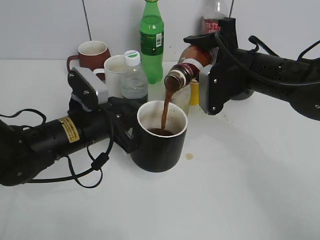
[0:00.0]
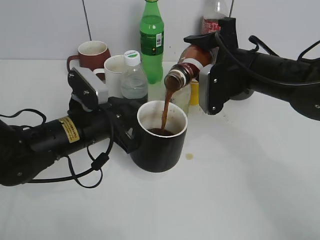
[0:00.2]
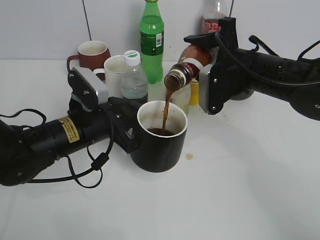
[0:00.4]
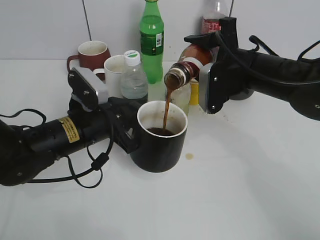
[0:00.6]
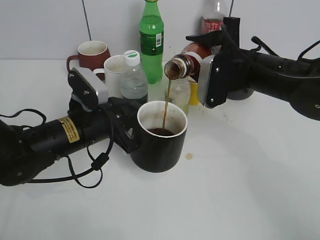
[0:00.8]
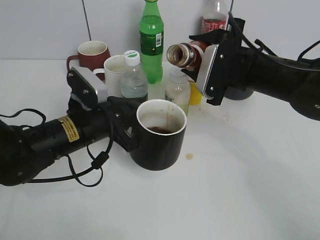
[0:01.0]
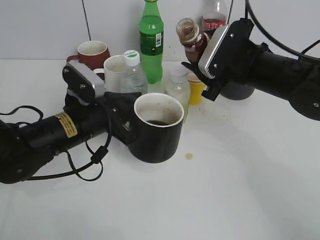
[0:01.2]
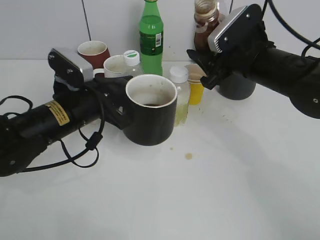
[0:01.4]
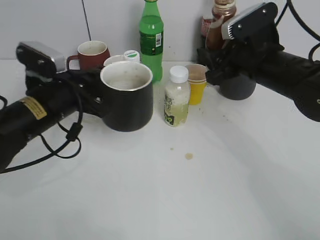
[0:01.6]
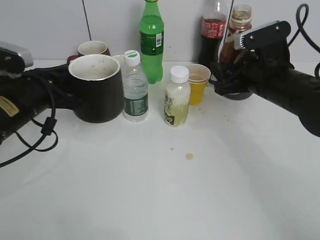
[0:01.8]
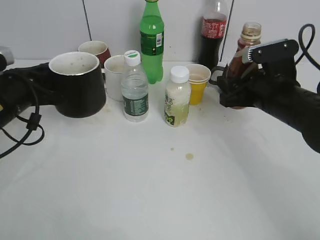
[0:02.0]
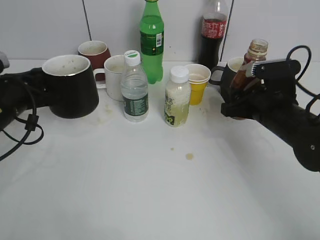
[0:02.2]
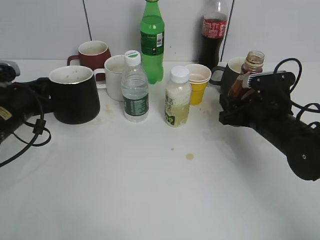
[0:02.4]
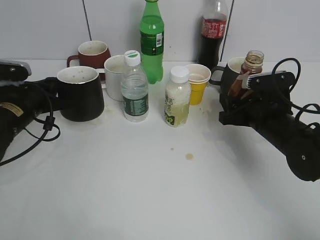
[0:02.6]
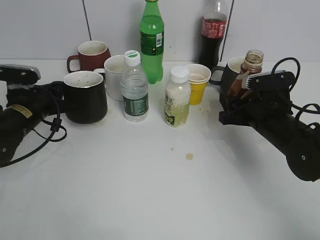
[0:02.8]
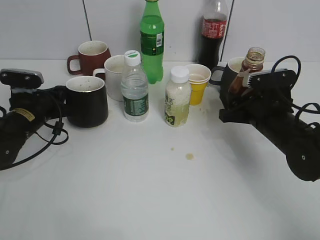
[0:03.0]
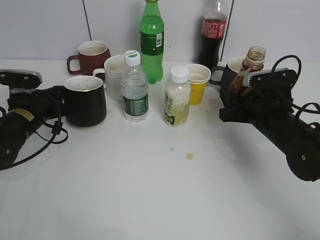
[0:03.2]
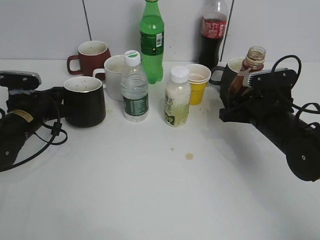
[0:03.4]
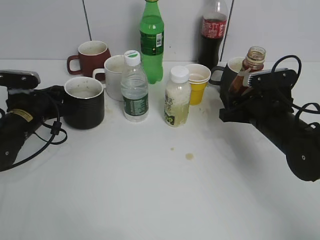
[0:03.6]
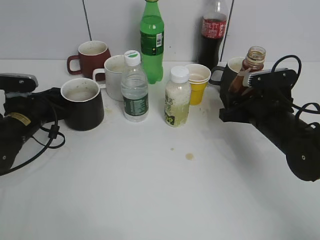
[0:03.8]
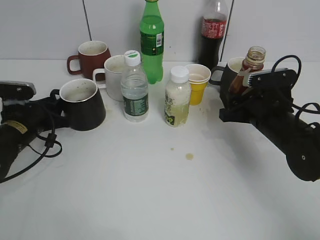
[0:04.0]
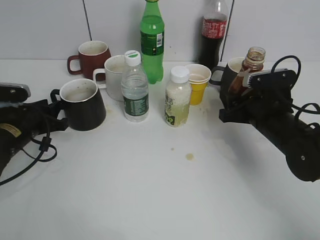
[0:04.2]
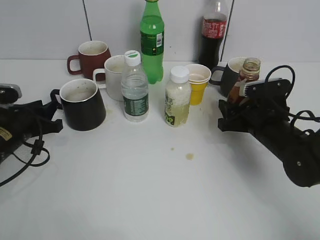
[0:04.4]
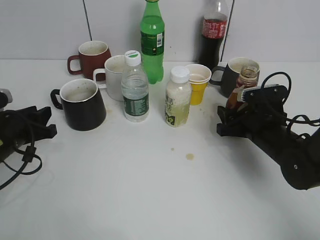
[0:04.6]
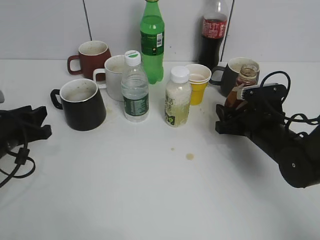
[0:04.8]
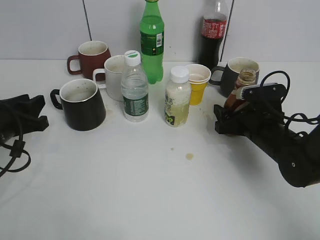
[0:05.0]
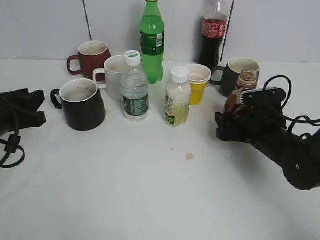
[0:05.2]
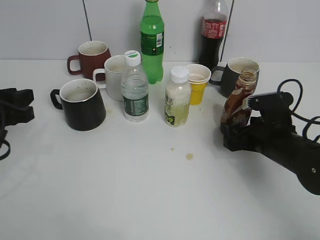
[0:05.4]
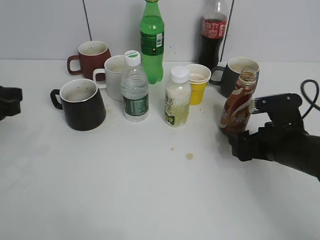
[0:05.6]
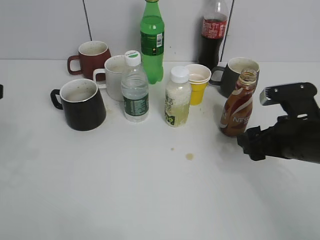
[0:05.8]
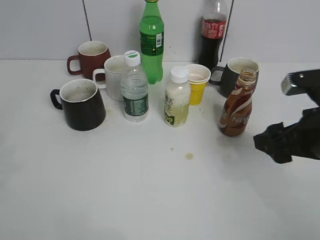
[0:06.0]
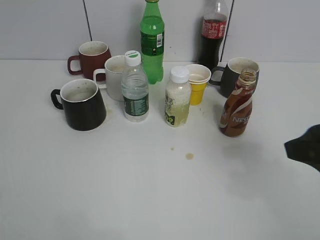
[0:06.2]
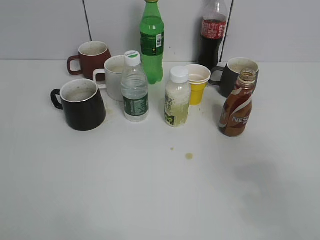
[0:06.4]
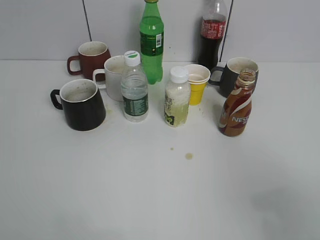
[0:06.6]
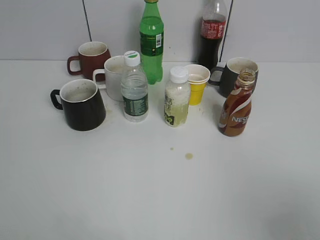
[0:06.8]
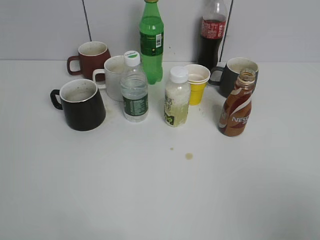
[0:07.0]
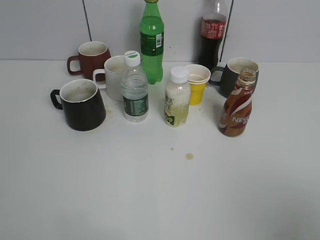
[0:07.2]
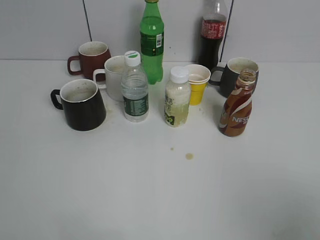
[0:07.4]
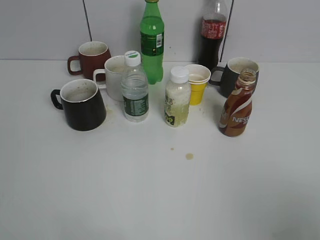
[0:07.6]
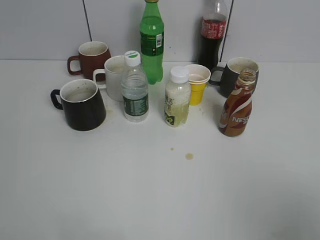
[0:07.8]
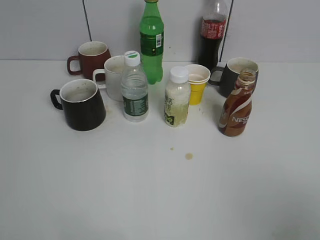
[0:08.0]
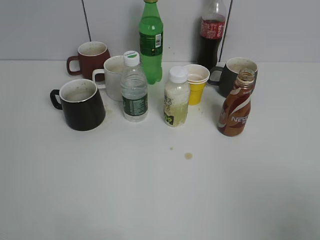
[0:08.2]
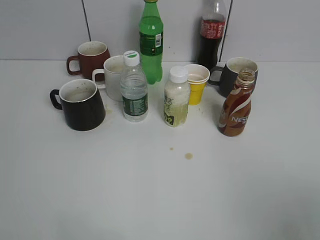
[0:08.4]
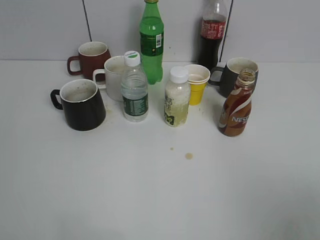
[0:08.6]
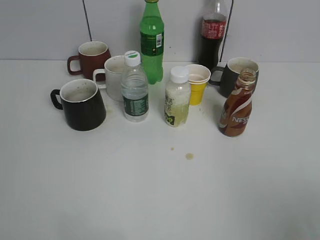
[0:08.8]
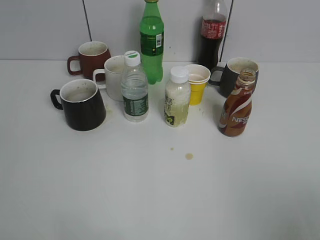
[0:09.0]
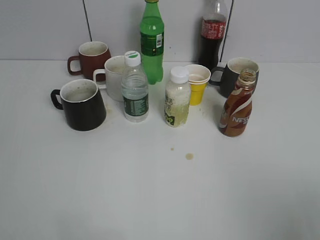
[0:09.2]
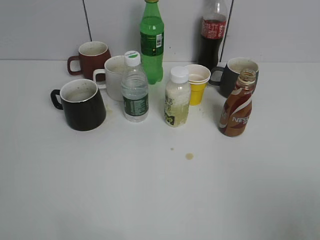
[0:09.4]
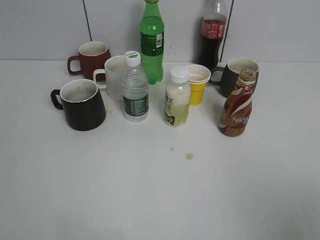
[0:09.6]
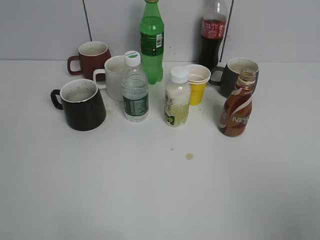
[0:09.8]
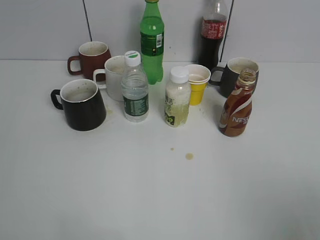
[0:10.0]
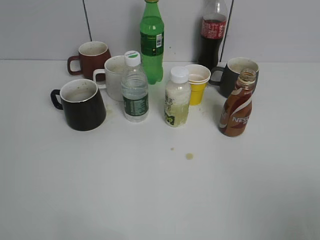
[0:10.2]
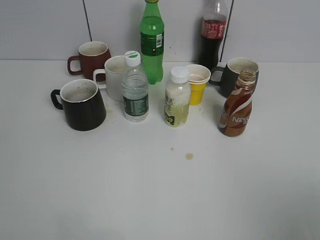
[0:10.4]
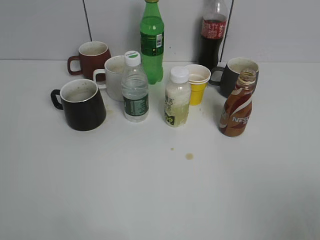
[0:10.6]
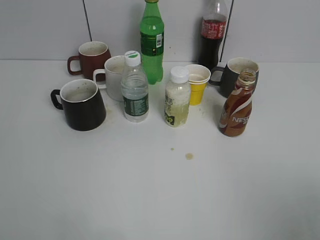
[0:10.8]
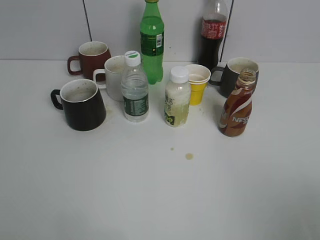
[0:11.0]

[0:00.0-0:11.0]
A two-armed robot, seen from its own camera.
Step, 0:01.4 to 0:05.2: Place the coffee bottle on the table with right gripper.
0:00.0 to 0:01.6: The left gripper changes place by roughly 5 cm.
0:01.6 to 0:03.2: The right gripper moves downward, approximately 10 cm; the left gripper goes some 15 cm downward, to the left and forward.
0:03.2 to 0:04.8: The left gripper heads backward, covering about 10 cm, and opens up.
0:04.8 to 0:06.2: The two grippers go some 25 cm upward and backward. The right gripper opens up.
0:06.2 to 0:07.8: The right gripper goes some 20 cm backward.
0:09.4 to 0:11.0: The two grippers keep their place.

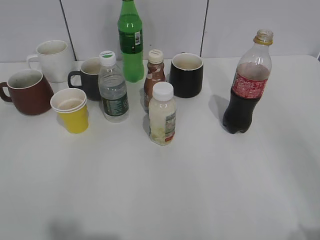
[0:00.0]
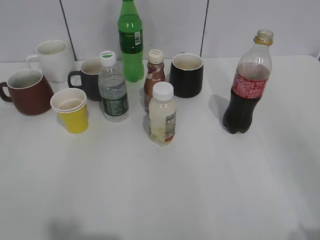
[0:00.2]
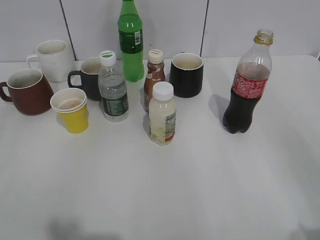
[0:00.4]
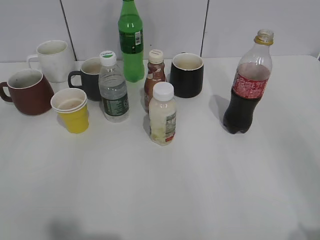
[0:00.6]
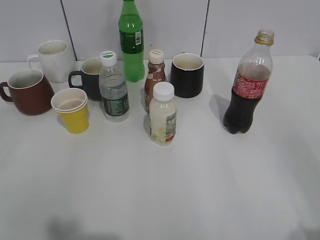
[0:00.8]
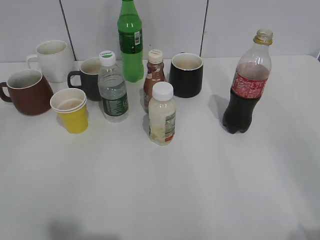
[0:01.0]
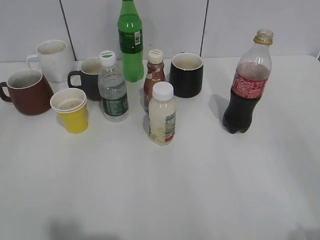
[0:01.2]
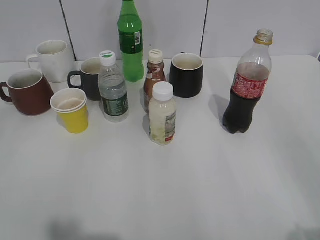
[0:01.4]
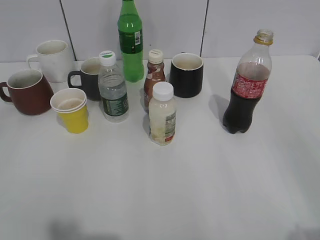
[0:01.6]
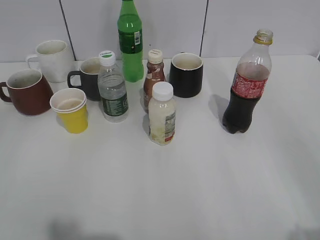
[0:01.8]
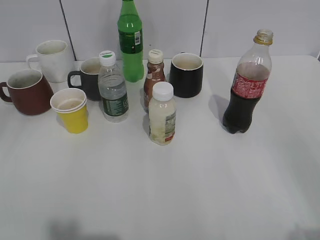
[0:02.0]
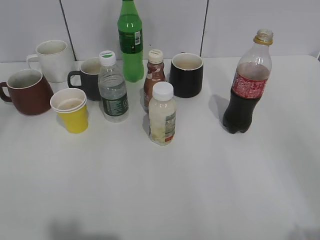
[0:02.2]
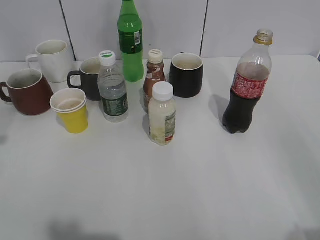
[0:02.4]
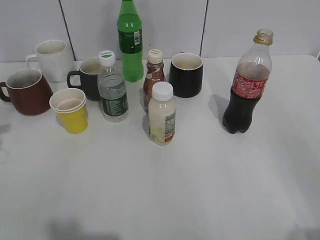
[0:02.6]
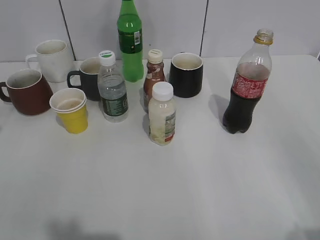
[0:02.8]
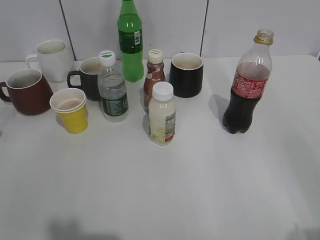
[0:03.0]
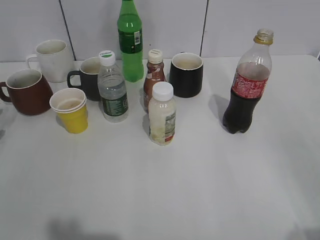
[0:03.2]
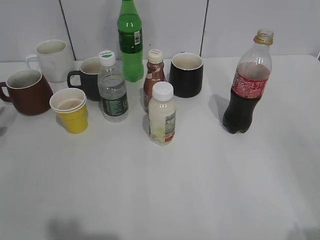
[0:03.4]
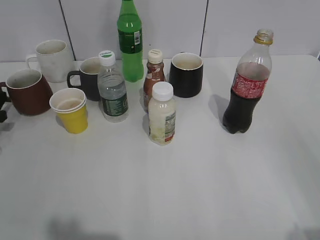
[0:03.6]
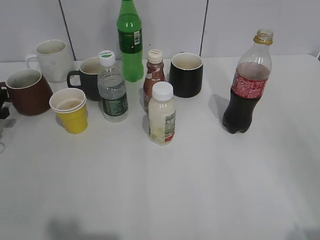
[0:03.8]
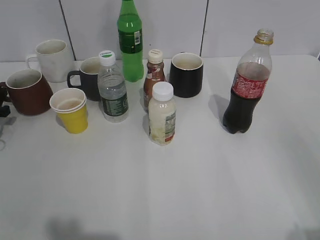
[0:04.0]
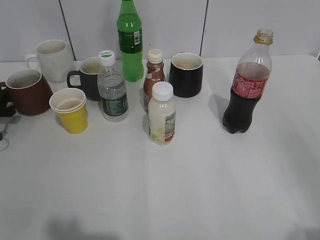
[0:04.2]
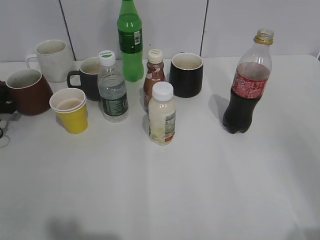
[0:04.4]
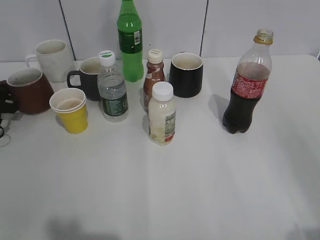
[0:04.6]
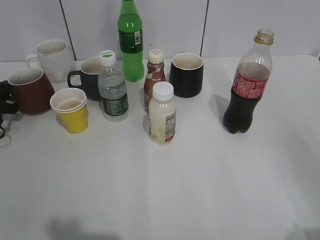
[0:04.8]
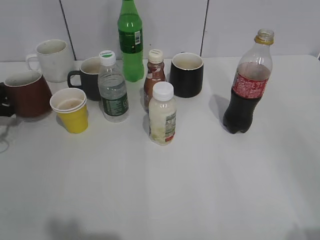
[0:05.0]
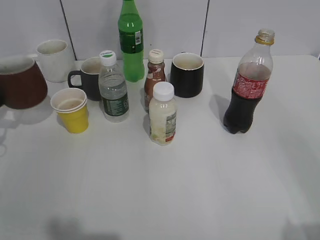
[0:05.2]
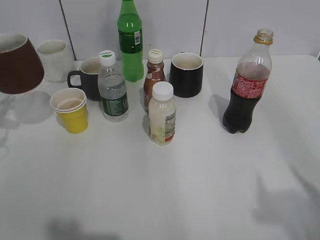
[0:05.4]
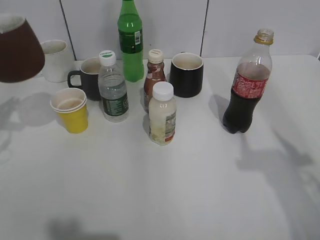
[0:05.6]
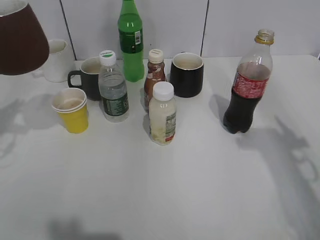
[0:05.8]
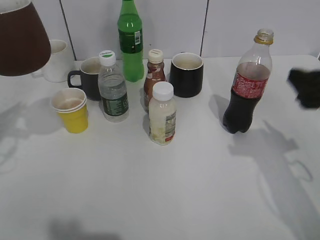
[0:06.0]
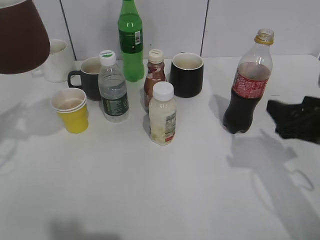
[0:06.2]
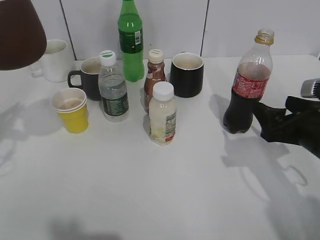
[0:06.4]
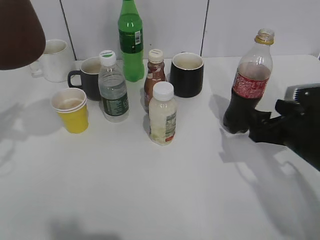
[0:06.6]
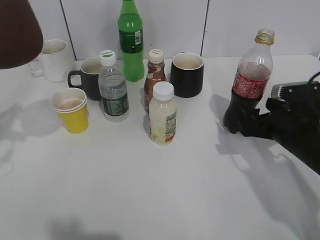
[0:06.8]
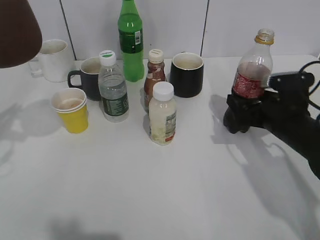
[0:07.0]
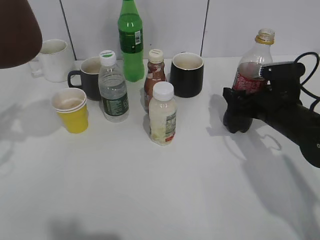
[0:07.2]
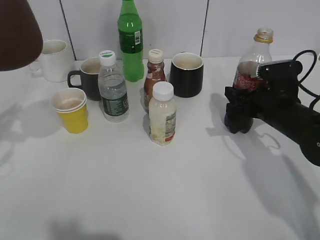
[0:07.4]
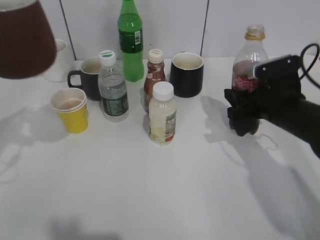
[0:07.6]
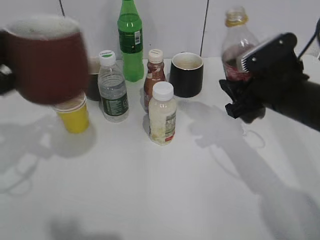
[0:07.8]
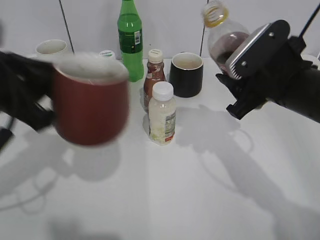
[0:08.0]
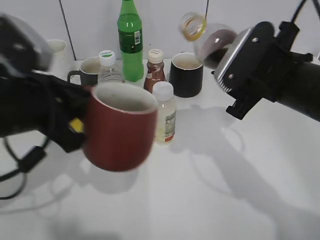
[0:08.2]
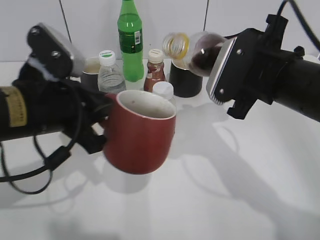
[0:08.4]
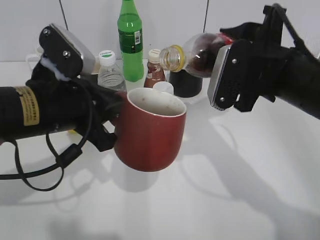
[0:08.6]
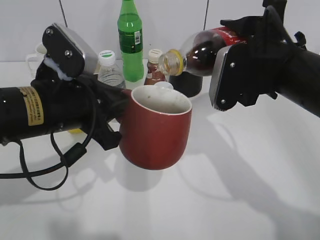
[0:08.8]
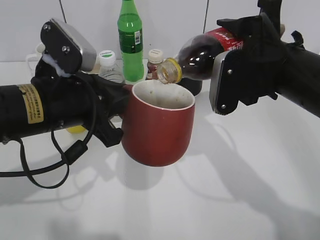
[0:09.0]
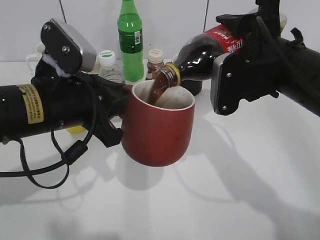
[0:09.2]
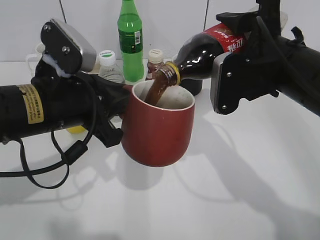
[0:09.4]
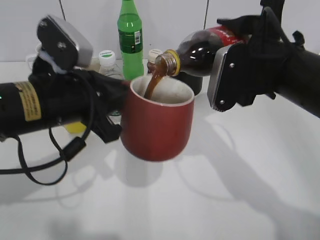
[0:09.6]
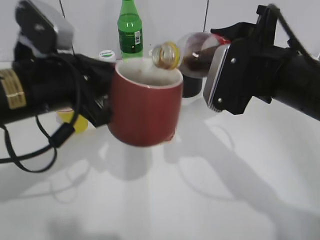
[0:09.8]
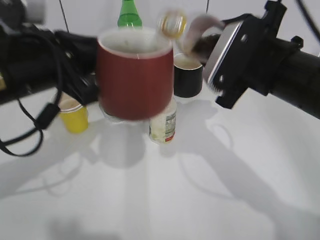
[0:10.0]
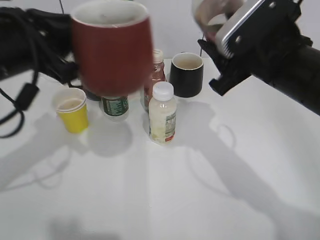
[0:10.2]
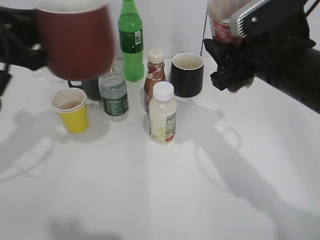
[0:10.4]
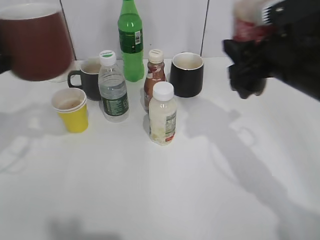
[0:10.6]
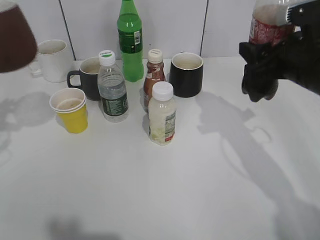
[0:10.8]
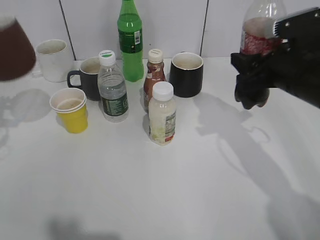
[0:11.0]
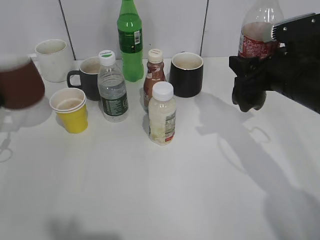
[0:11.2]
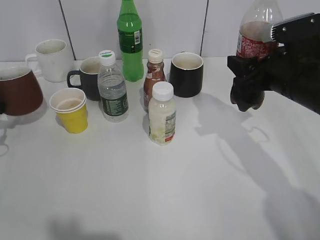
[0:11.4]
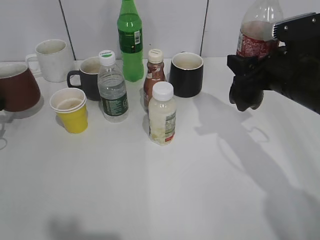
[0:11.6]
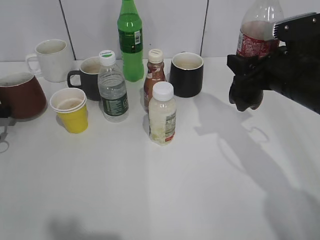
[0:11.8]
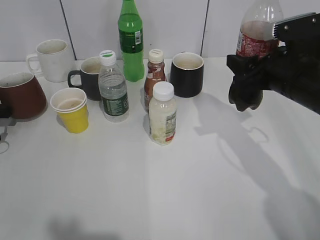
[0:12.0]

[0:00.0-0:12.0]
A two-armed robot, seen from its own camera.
Step, 0:00.8 to 0:04.6: Grasp the red cup with left gripper.
Step, 0:05.2 to 0:07.2: Grasp the bottle with cola with right gripper.
Step, 0:07.4 to 0:10.2: Pour the cola from bottle to cup with right gripper.
0:01.6 to 0:03.0: The left gripper goes approximately 35 cm forward and downward.
0:03.0 to 0:04.4: The left gripper travels forward by roughly 10 cm.
0:04.4 to 0:06.0: The left gripper heads upward, backward and to the right, covering approximately 25 cm, and closes up, while the right gripper goes roughly 25 cm forward.
0:06.0 to 0:07.6: The right gripper moves downward, forward and to the left, about 15 cm, and closes up.
0:07.6 to 0:09.0: The left gripper travels to the right and downward by approximately 15 cm. The right gripper moves upward and to the left, about 10 cm.
0:09.0 to 0:10.4: The left gripper is displaced to the left and upward by roughly 10 cm.
0:10.4 to 0:12.0: The right gripper ends up roughly 5 cm from where it was, while the left gripper heads downward, to the left and forward, covering about 30 cm.
